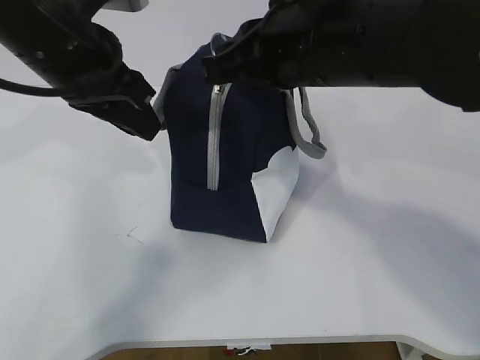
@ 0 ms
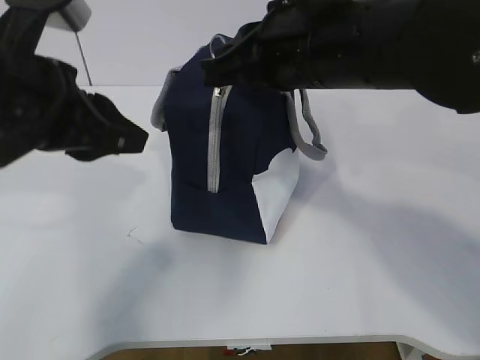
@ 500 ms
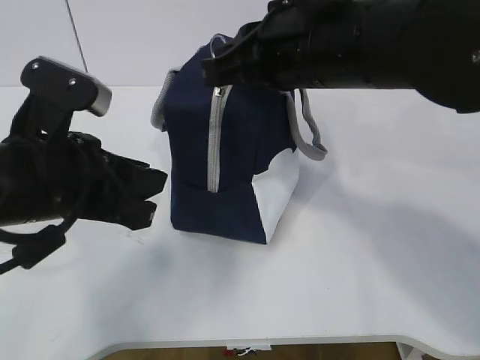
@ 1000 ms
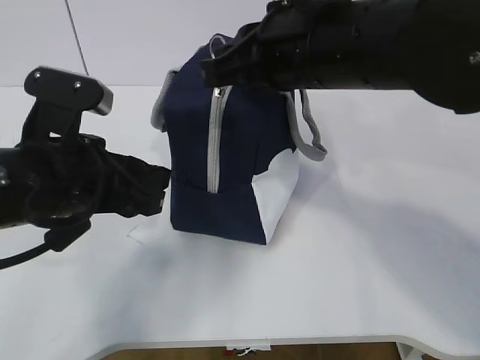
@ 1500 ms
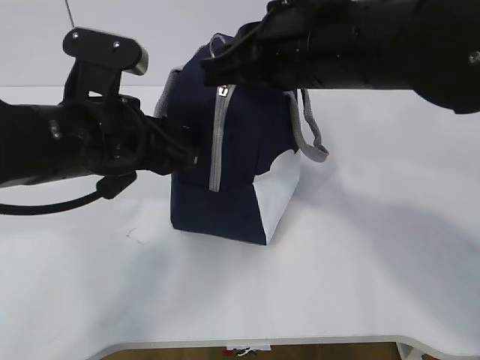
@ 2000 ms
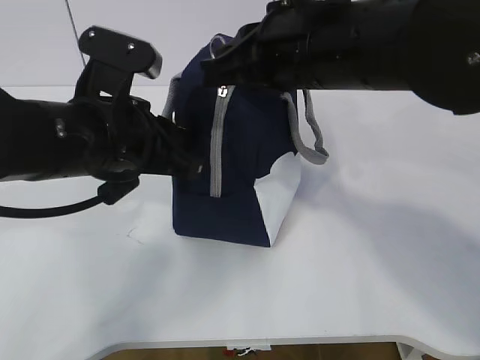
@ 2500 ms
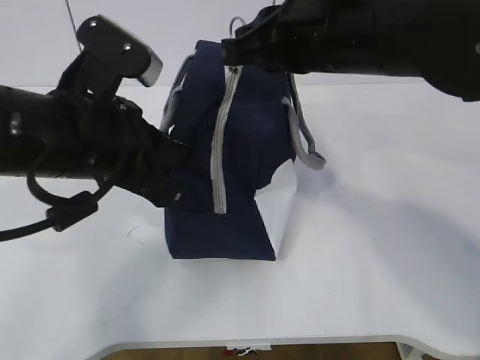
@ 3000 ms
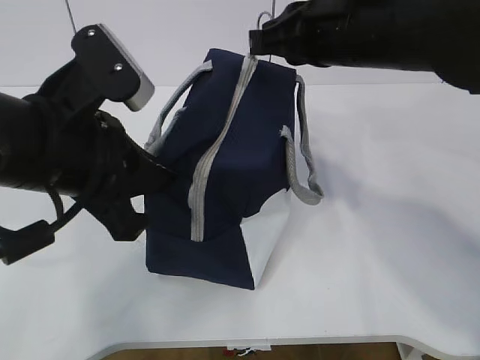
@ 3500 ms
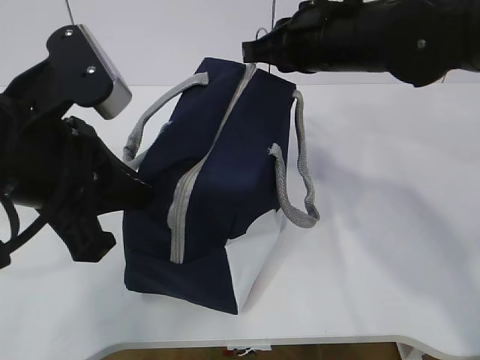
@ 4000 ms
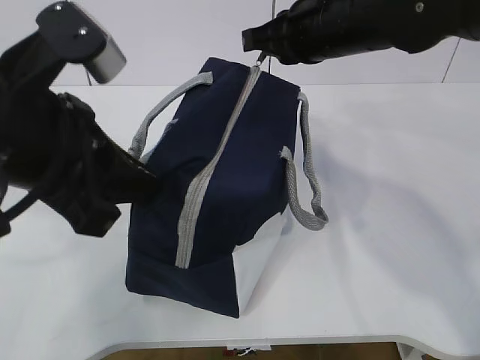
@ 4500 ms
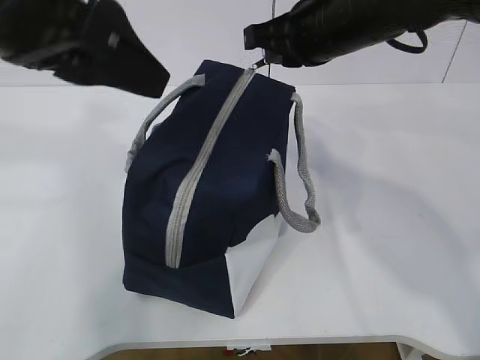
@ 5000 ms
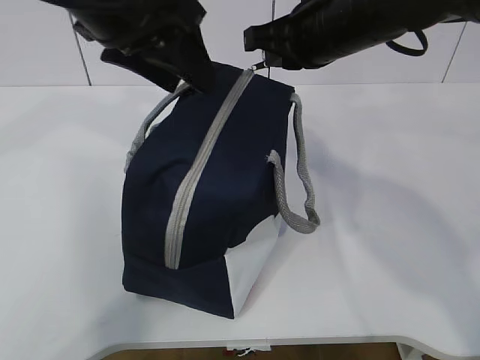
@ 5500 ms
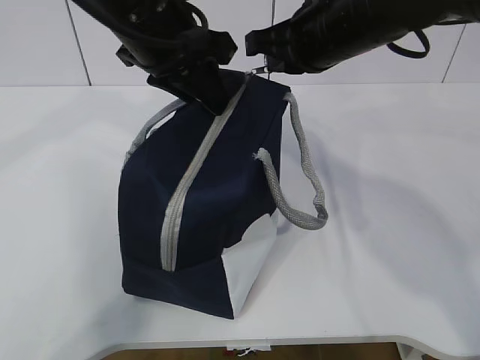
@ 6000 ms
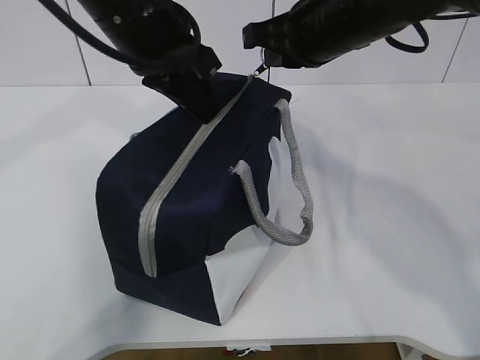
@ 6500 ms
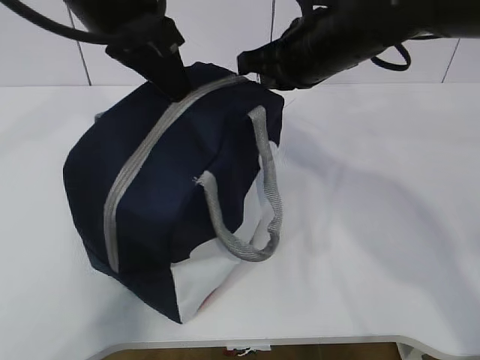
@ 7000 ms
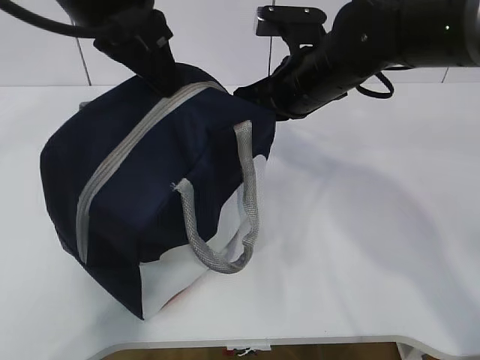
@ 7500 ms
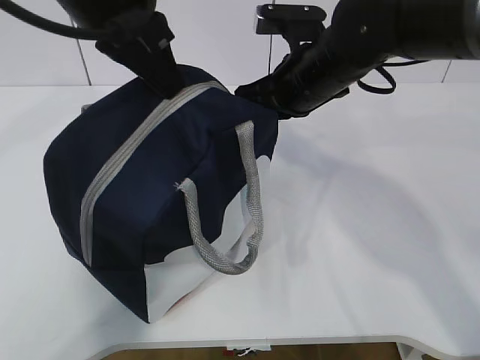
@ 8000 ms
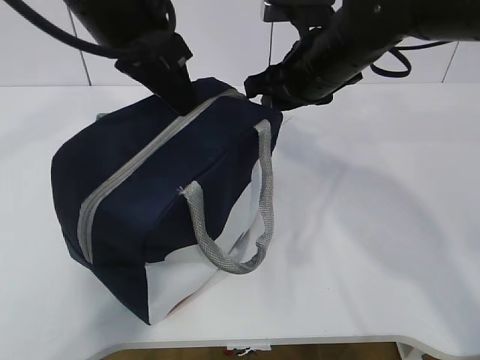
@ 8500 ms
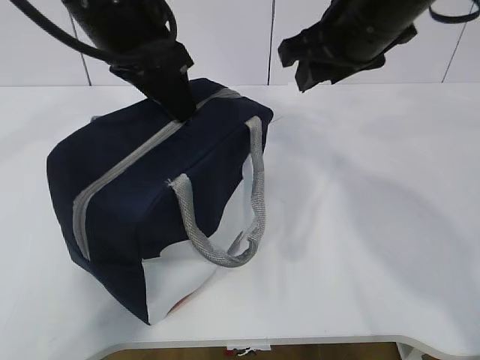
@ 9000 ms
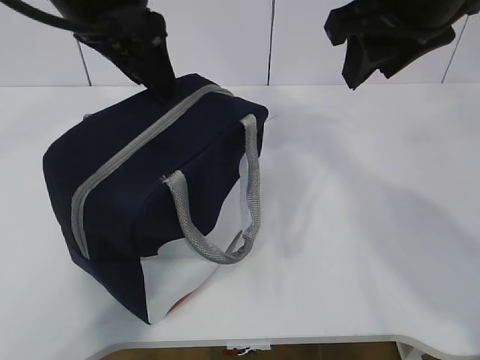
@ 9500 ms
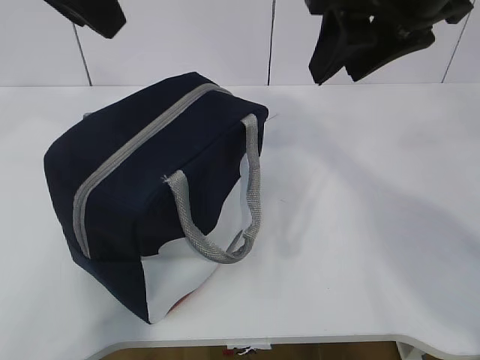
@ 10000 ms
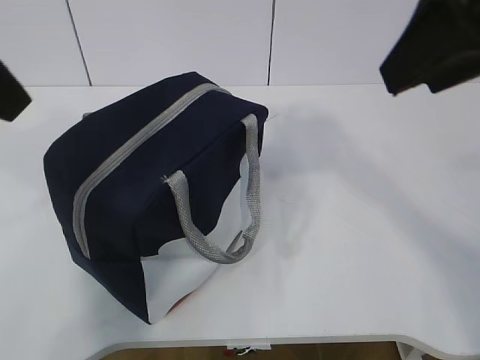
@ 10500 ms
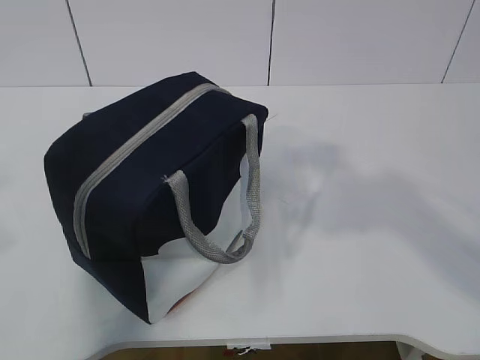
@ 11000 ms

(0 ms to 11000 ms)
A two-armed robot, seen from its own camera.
0 ms - 2000 ms: The left gripper travels downward by approximately 5 cm, and opens up.
2000 ms - 3500 ms: The left gripper ends up some 5 cm from where it was, and closes; the right gripper changes place by approximately 5 cm.
3500 ms - 5500 ms: The left gripper shifts some 15 cm upward and forward, and opens.
5500 ms - 7500 ms: The left gripper closes. The right gripper goes roughly 5 cm downward.
7500 ms - 9000 ms: The left gripper opens its fingers, while the right gripper heads upward, covering some 10 cm, and opens.
9000 ms - 11000 ms: The right gripper heads backward, covering roughly 25 cm. The left gripper heads backward and to the left, covering about 25 cm.

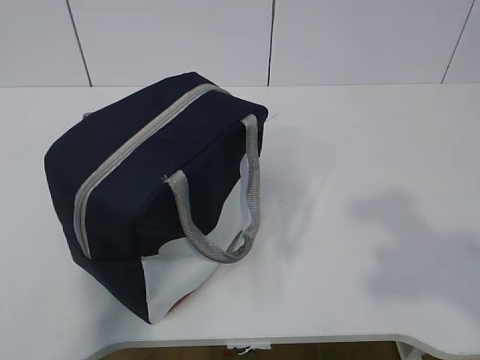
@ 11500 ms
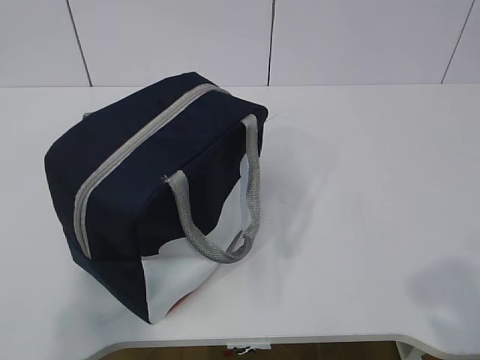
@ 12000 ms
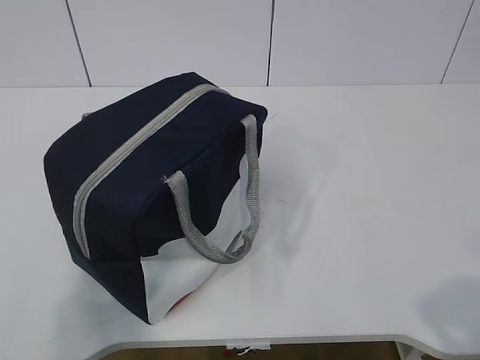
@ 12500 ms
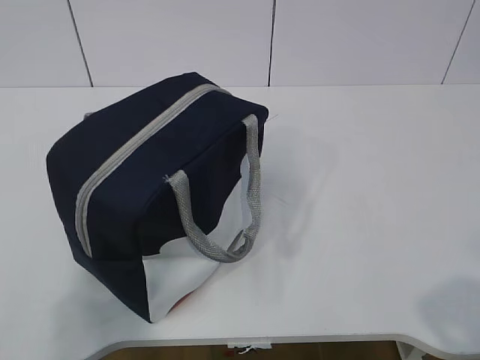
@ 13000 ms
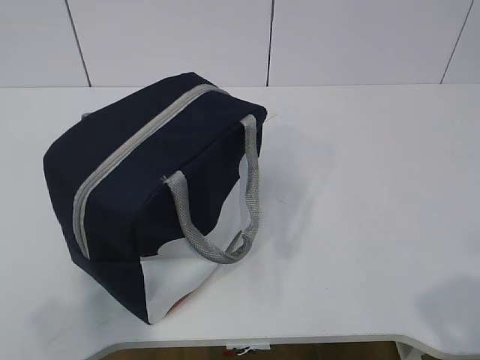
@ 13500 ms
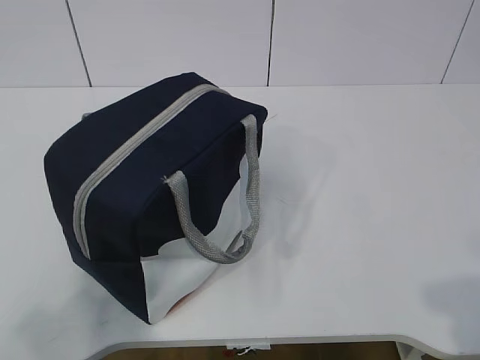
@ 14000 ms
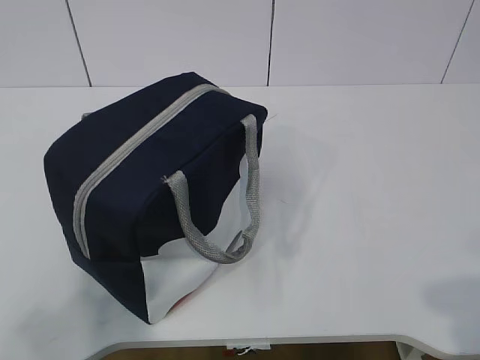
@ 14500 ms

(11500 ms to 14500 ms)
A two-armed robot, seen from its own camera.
11500 ms - 13000 ms: The left gripper is displaced downward by approximately 5 cm.
